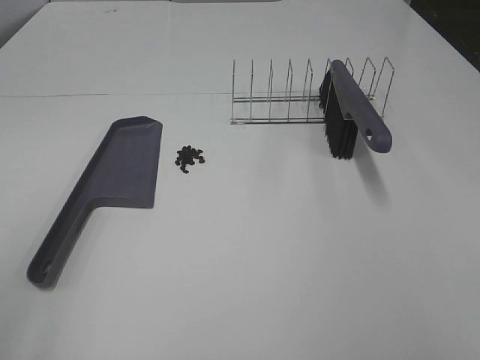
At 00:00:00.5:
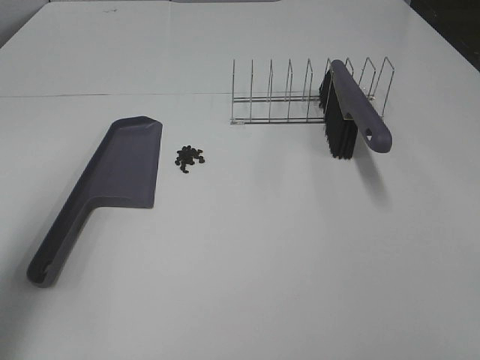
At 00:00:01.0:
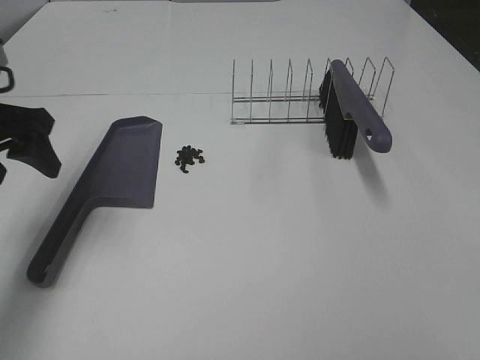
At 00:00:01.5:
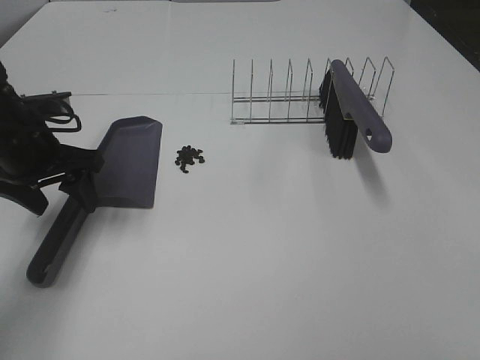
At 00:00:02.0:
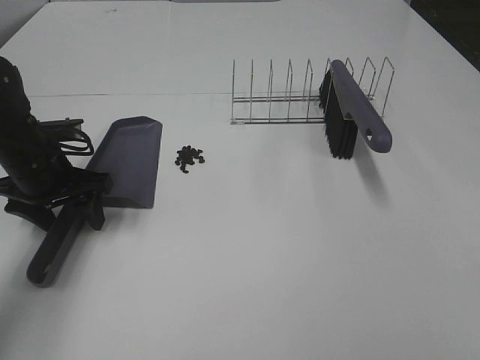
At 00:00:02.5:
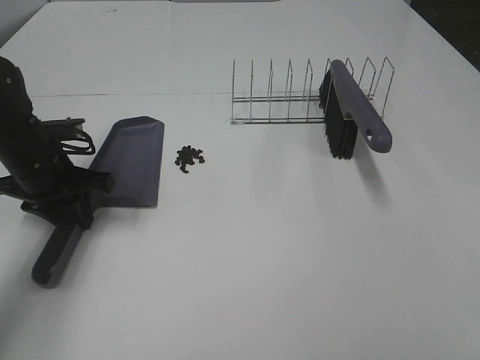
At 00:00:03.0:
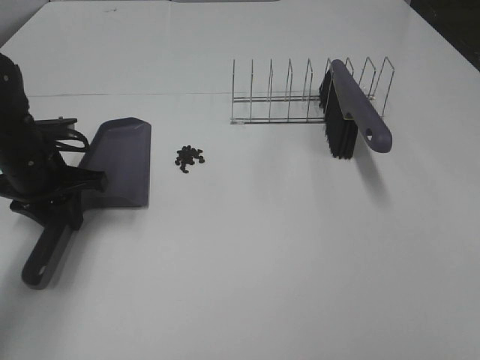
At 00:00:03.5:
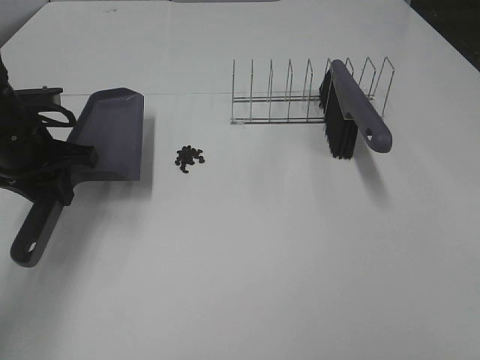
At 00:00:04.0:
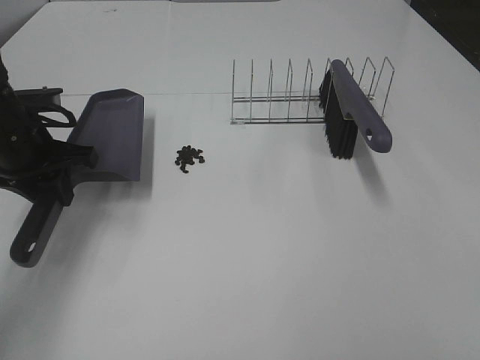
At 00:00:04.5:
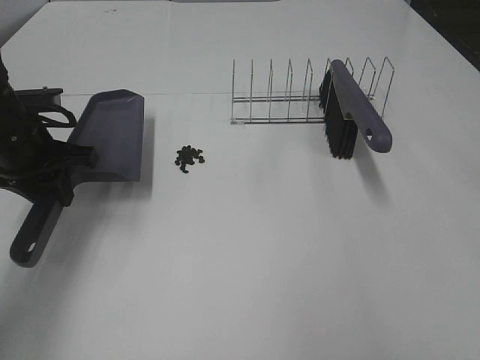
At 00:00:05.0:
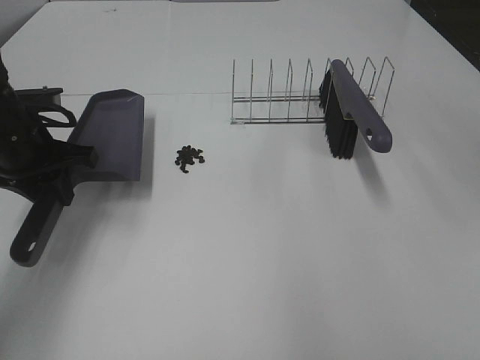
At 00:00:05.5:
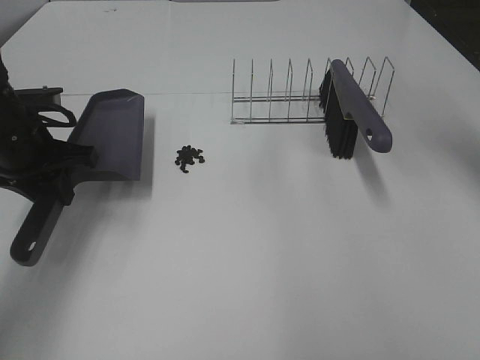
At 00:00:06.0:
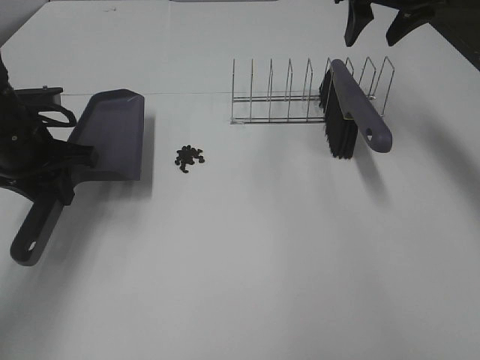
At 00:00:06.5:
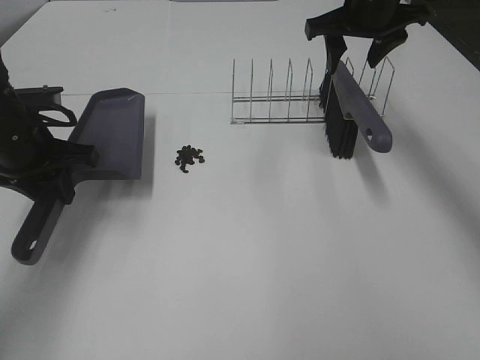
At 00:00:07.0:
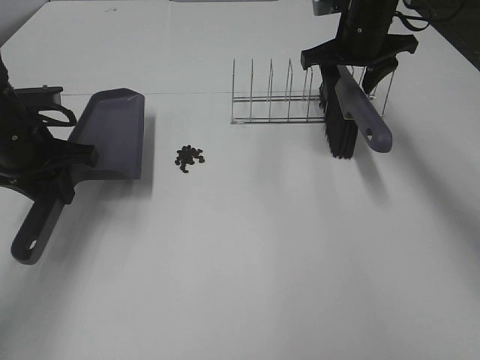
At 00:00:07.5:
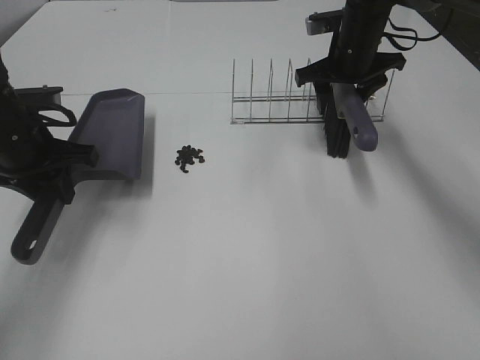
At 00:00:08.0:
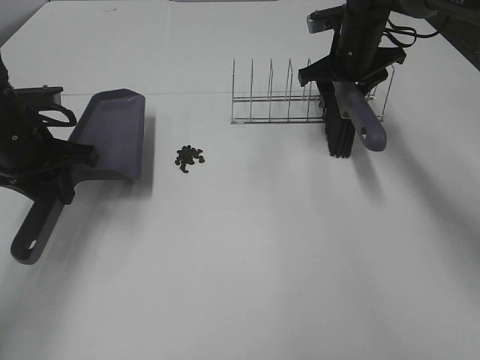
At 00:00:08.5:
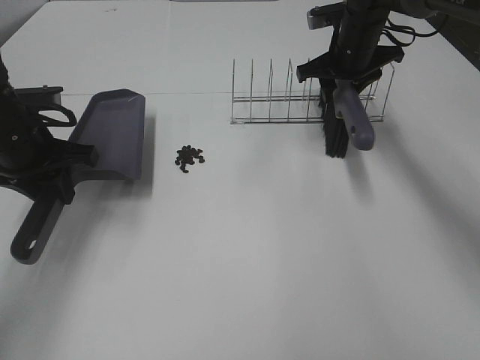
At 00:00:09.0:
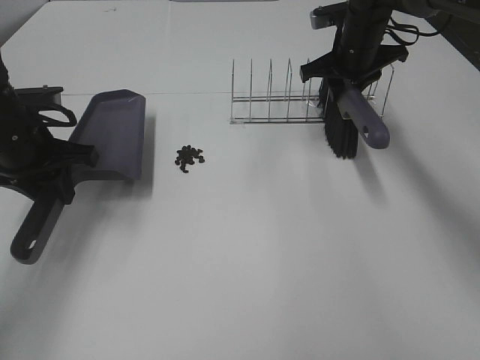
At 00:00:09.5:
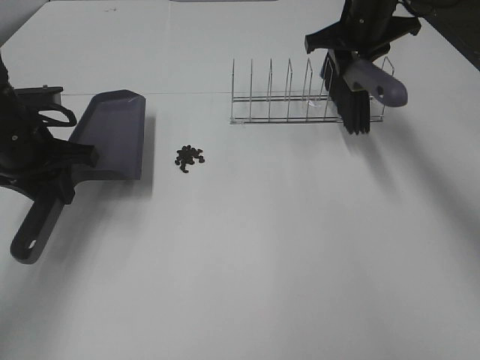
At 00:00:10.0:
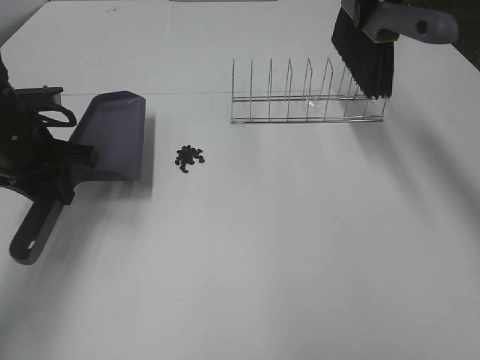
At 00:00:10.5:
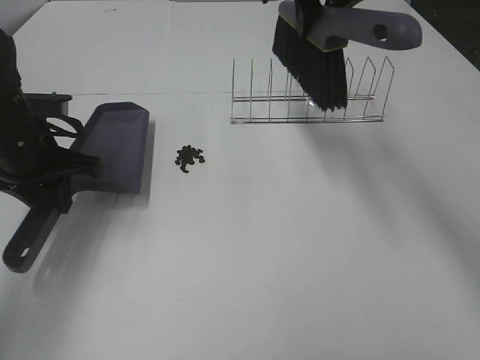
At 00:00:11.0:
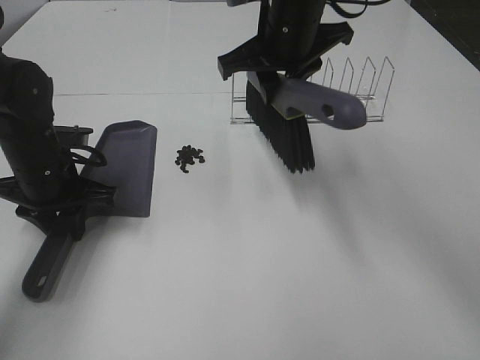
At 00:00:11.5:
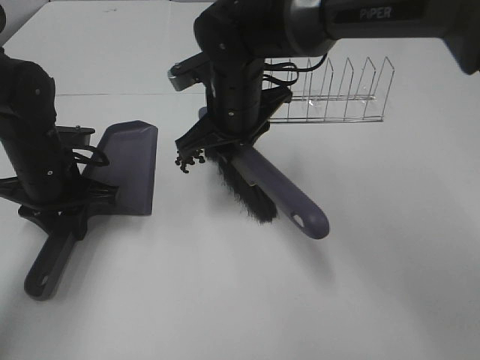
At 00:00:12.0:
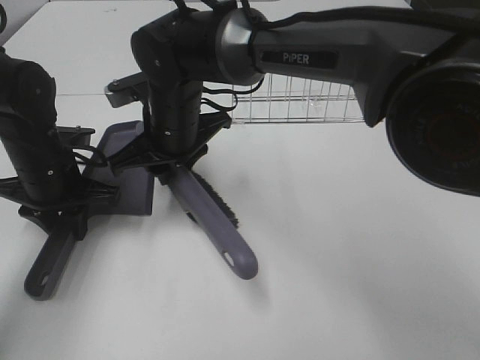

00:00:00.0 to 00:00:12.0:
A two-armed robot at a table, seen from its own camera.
Task of the whole recording: Sweep Coffee Bean.
Step, 00:00:00.0 to 00:00:02.5: Left hand: grab the dustpan.
Step, 00:00:04.0 to 00:00:08.5: Right hand:grab the broom.
00:00:00.0 to 00:00:02.0: The left gripper heads forward and downward, covering about 40 cm.
00:00:02.0 to 00:00:04.0: The left gripper closes.
00:00:04.0 to 00:00:06.0: The right gripper heads forward, covering approximately 50 cm.
00:00:06.0 to 00:00:08.0: The right gripper shifts roughly 10 cm downward.
00:00:08.0 to 00:00:10.0: The right gripper shifts roughly 15 cm upward, and closes.
00:00:10.0 to 00:00:12.0: The right gripper goes approximately 35 cm to the left, downward and backward. The left gripper moves downward, about 5 cm.

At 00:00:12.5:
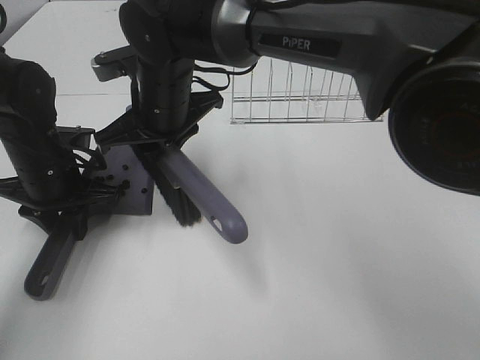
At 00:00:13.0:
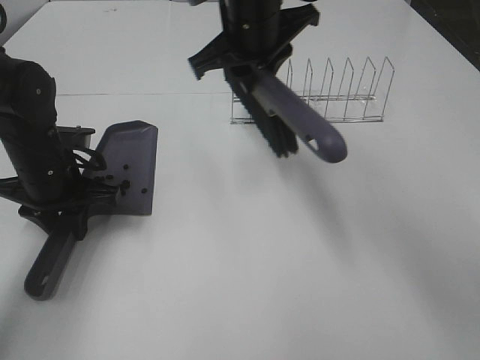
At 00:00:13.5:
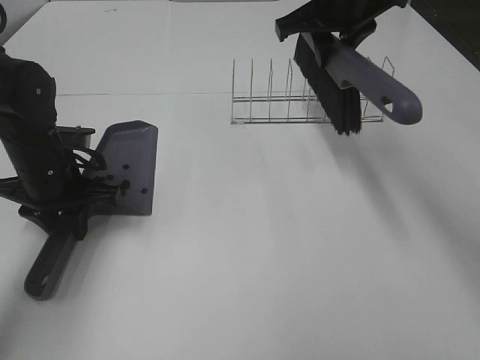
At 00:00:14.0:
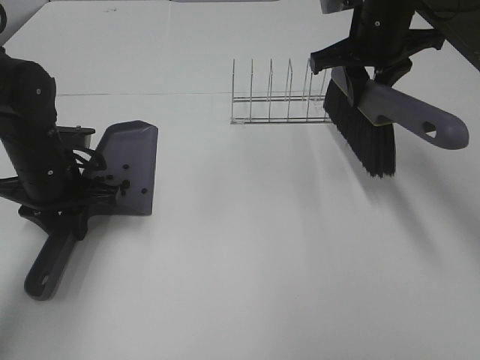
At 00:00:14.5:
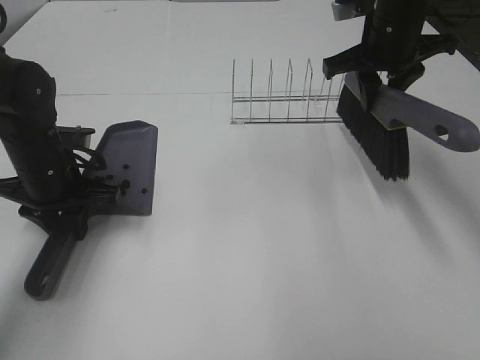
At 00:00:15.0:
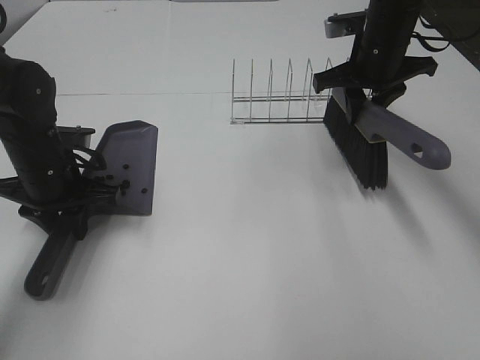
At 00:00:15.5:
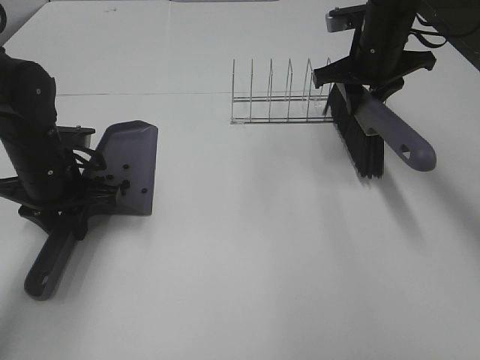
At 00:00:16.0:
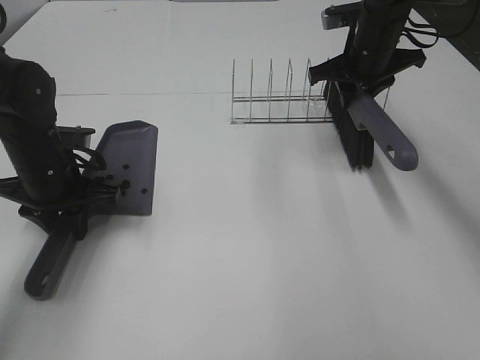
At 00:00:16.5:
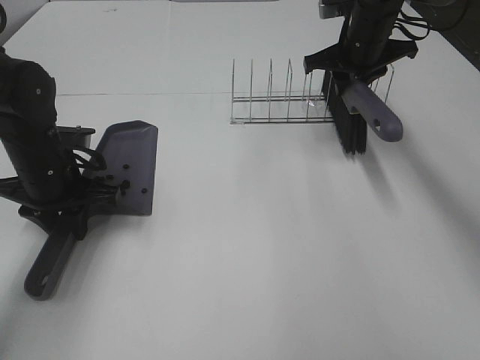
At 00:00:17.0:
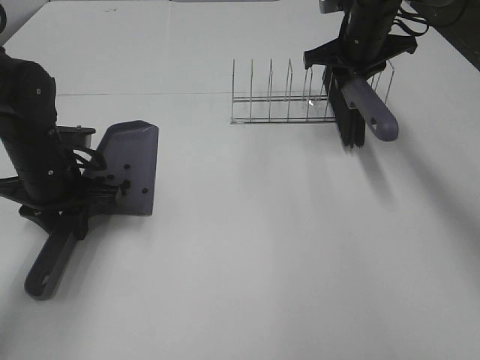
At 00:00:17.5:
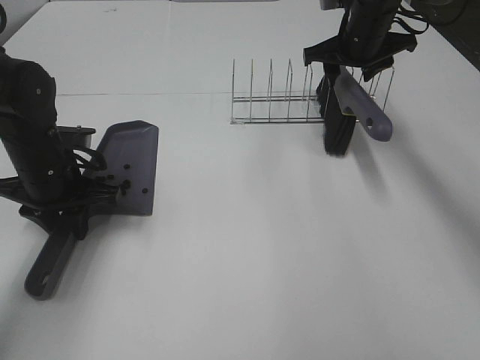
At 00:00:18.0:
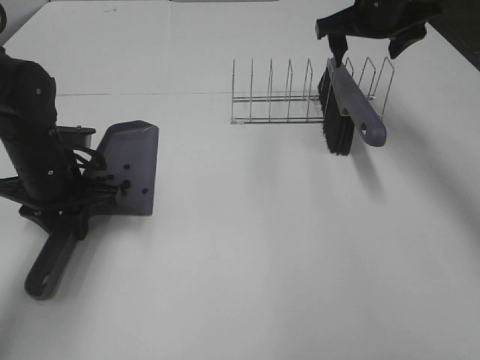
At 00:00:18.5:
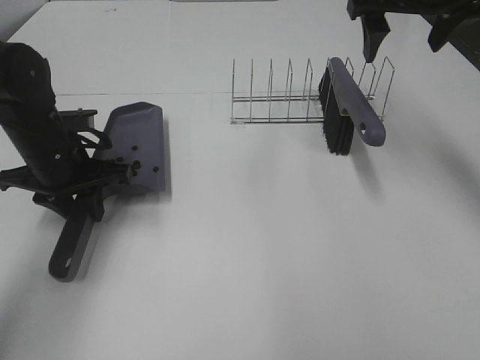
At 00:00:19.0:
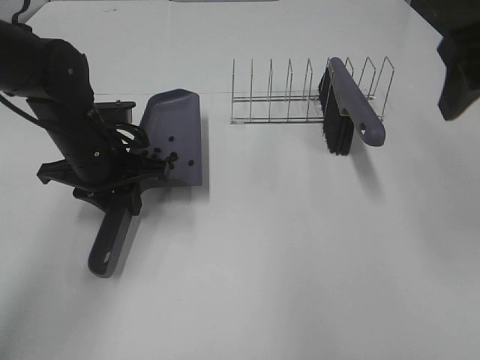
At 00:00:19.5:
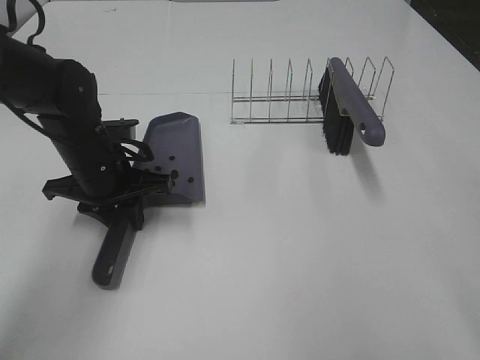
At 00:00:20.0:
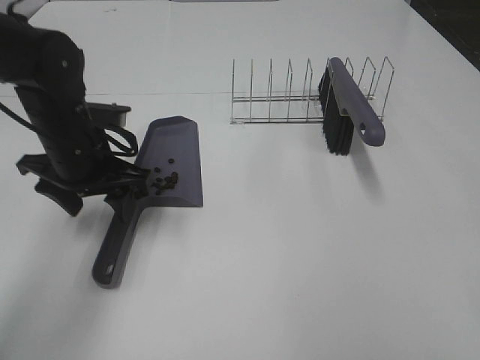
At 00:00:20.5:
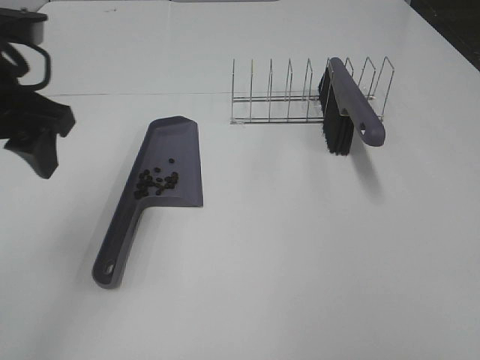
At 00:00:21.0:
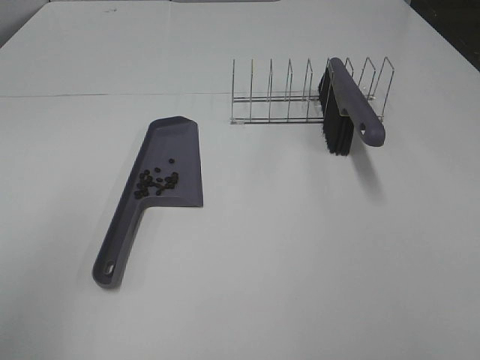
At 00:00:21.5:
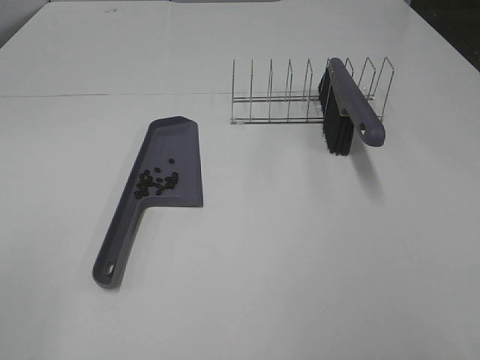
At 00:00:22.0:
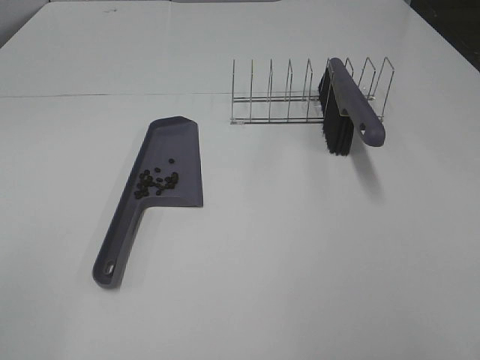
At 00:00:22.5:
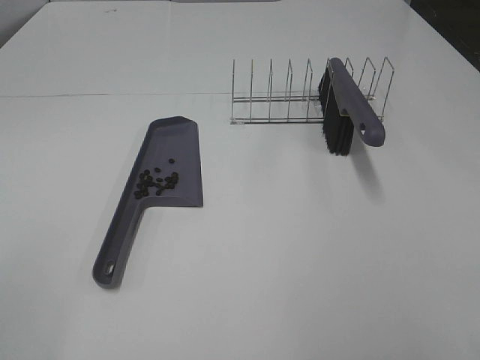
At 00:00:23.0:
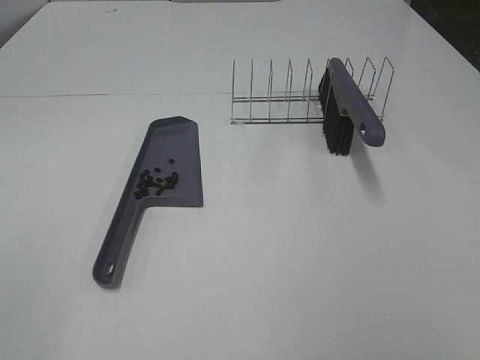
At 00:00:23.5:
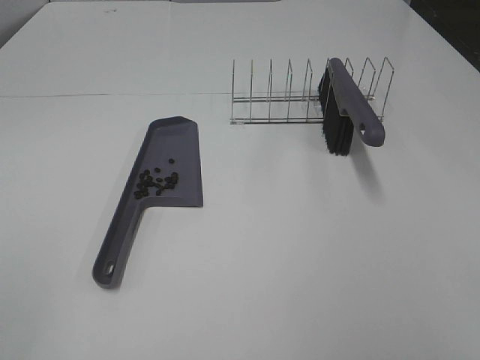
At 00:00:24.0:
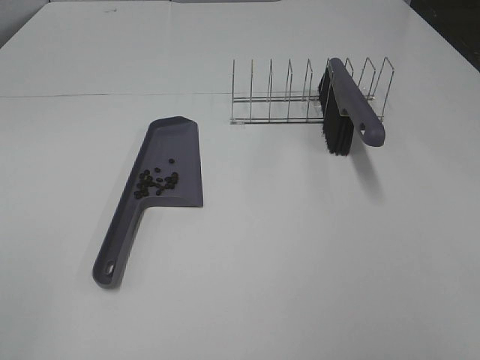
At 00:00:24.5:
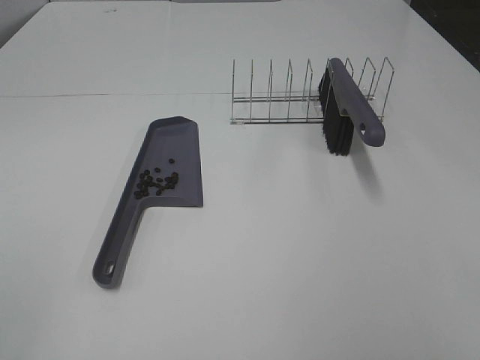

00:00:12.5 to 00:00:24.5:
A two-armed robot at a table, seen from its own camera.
Task of the whole recording: Sweep Coffee Bean.
Step, 00:00:13.0 to 00:00:17.5: Right hand:place the broom on the rack.
Step, 00:00:18.0 to 00:00:19.5: Left hand:place the dustpan on the table.
00:00:12.5 to 00:00:14.5: The right gripper travels to the right by some 25 cm.
00:00:14.5 to 00:00:16.5: The right gripper goes about 5 cm forward.
00:00:16.5 to 00:00:18.5: The right gripper is displaced upward and backward by roughly 15 cm, and opens up.
00:00:18.5 to 00:00:20.5: The left gripper goes approximately 15 cm upward and backward, and opens its fingers; the right gripper goes some 35 cm backward.
00:00:20.5 to 00:00:22.5: The left gripper heads backward, covering approximately 25 cm.
